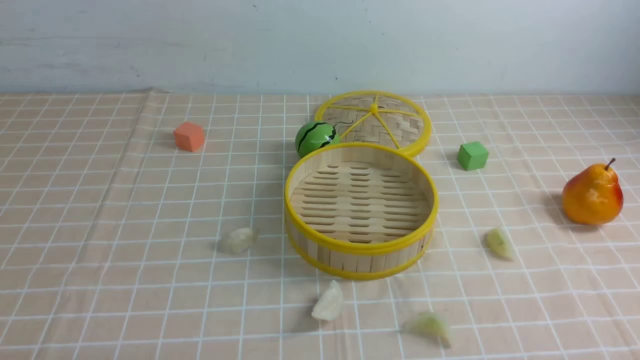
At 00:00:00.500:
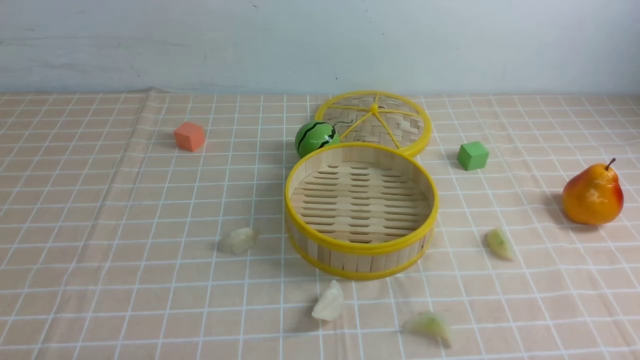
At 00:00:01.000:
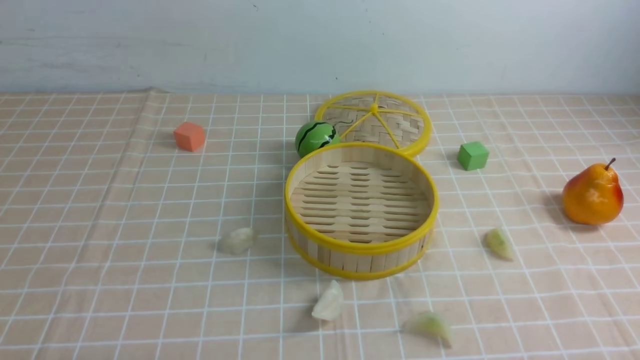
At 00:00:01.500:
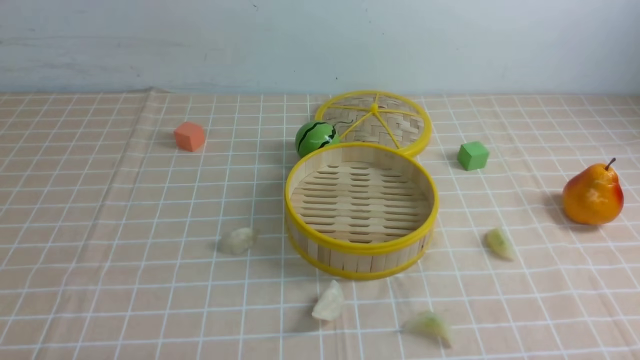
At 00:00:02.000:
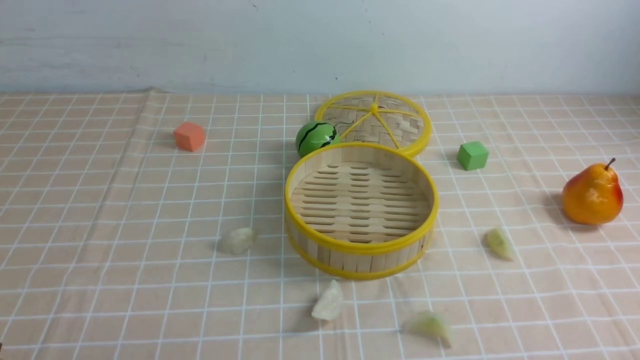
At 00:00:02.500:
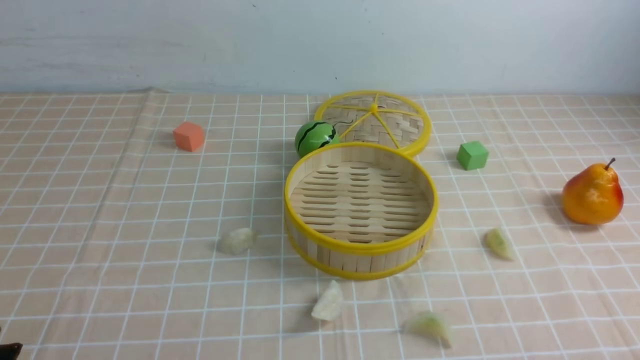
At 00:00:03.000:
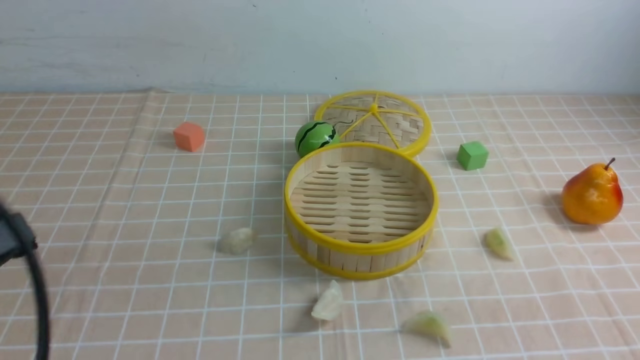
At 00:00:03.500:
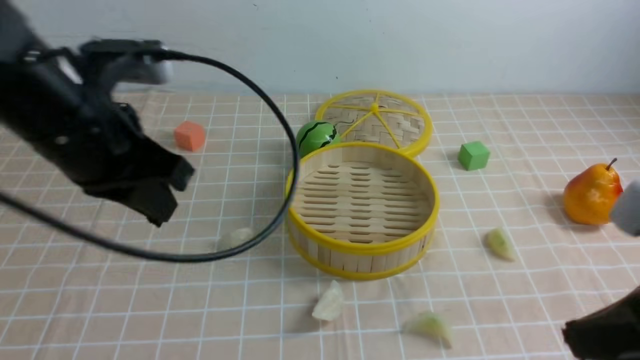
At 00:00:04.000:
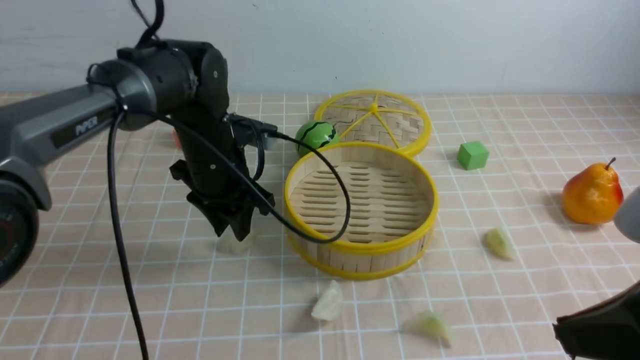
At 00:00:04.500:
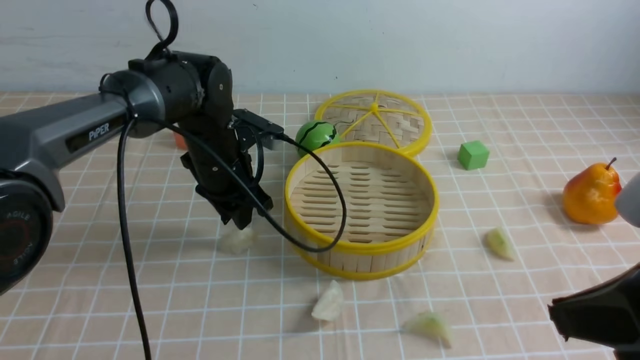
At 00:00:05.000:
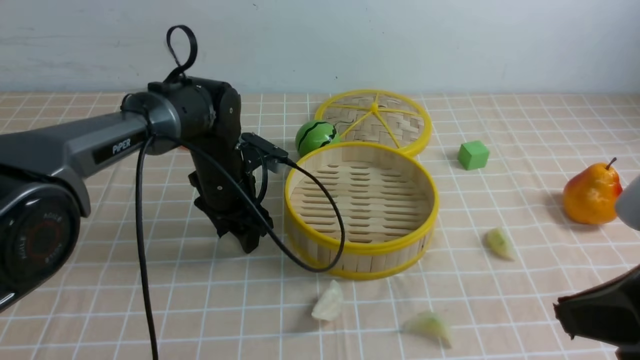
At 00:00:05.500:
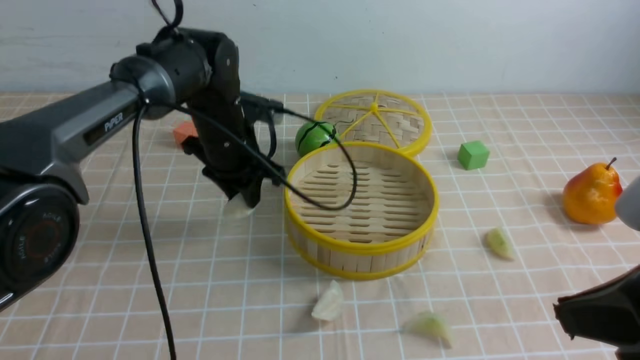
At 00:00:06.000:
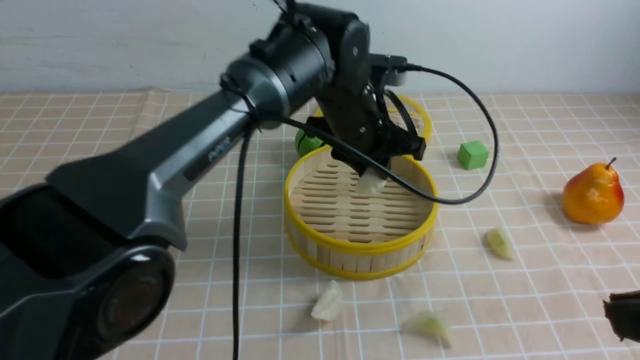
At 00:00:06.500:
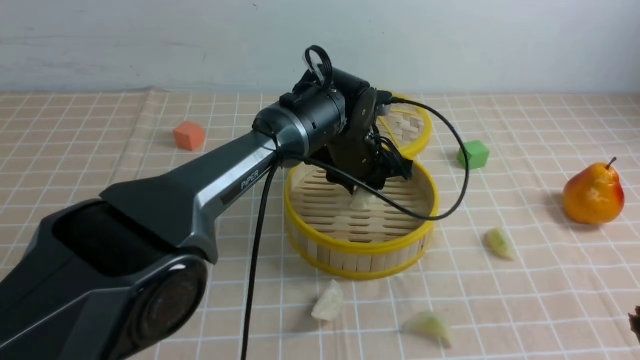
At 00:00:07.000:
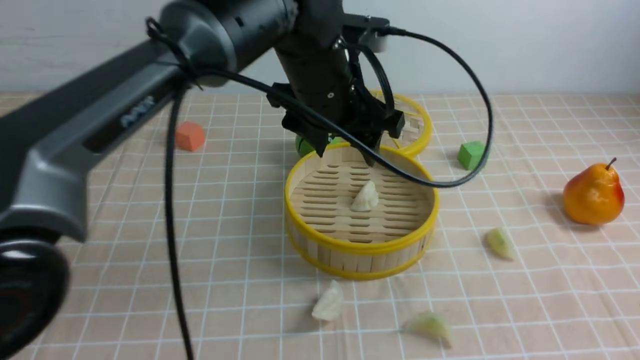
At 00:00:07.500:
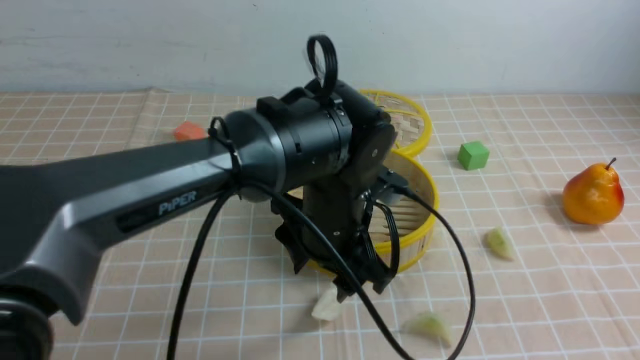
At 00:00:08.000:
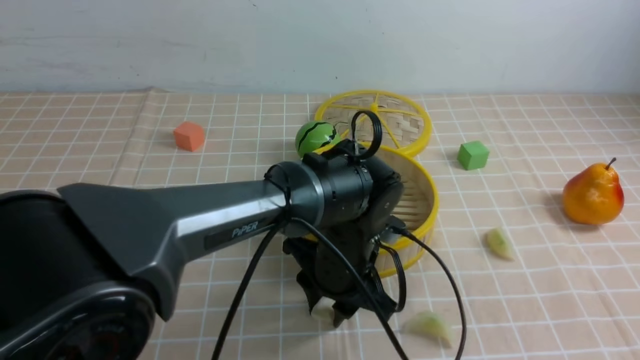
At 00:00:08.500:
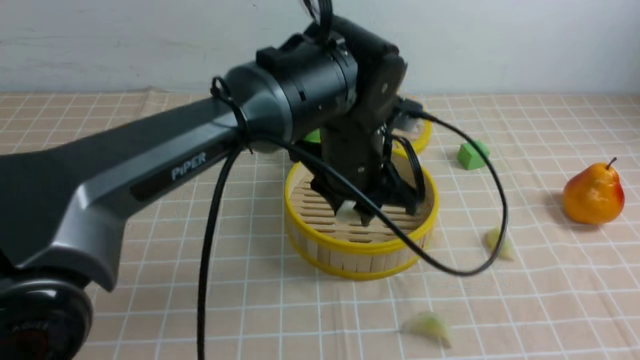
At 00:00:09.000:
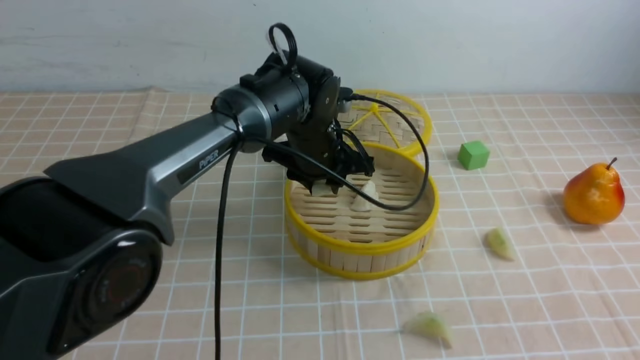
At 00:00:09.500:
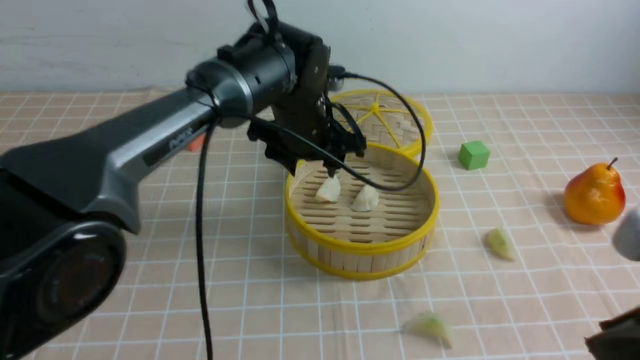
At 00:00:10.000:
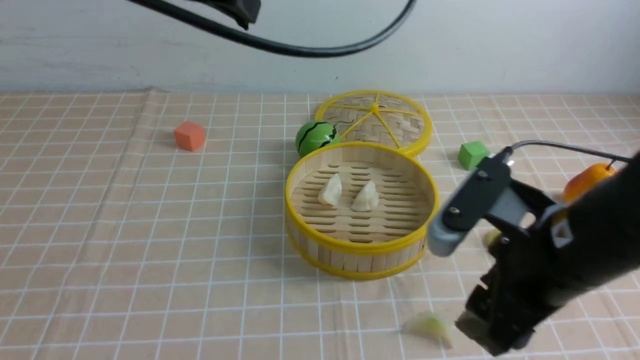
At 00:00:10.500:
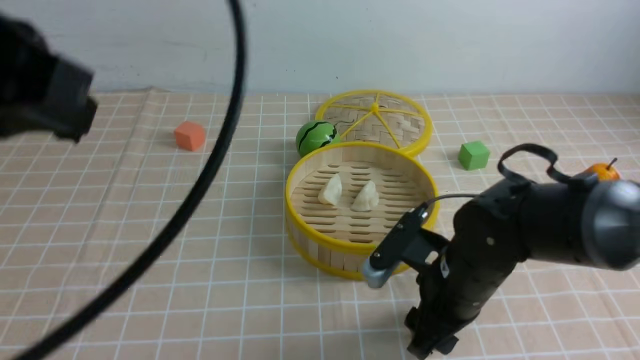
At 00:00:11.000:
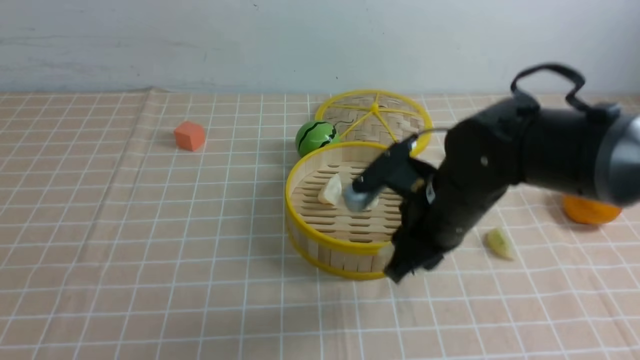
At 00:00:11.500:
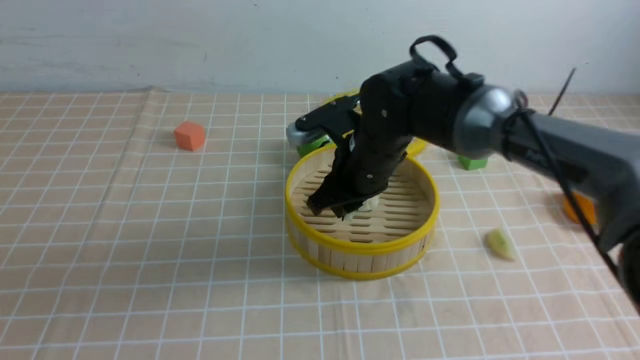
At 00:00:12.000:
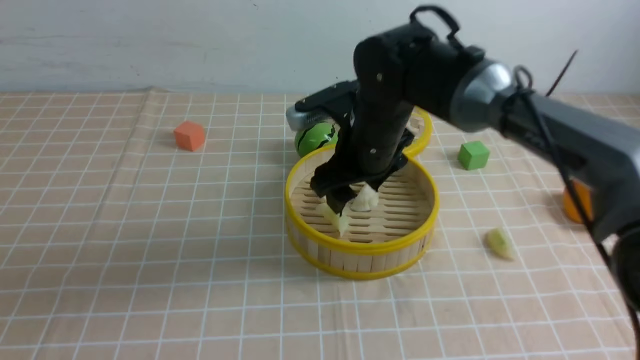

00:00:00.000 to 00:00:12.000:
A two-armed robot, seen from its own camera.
Task of the whole recording: put the dumplings into the steamer on the table with the brown tablecloth.
Step, 00:00:00.000 to 00:00:05.000: use the left arm to grab a dumpling.
Step, 00:00:05.500 to 00:00:06.500: use the left arm to put the dumpling into the steamer.
Step, 00:00:07.000 to 00:00:07.500: use the left arm to grab a dumpling.
Step, 00:00:08.000 to 00:00:09.000: use the left arm to put the dumpling into the steamer.
Step, 00:00:10.000 to 00:00:10.500: use the right arm to grab a dumpling.
Step, 00:00:11.000 to 00:00:12.000: use the right arm to put the dumpling into the steamer.
00:00:02.000 to 00:00:04.000: The left gripper shifts roughly 40 cm forward and to the right, and closes, then opens again. The right gripper is displaced upward, forward and to the left by some 20 cm, and closes its fingers.
00:00:04.000 to 00:00:06.000: The left gripper travels to the right by approximately 15 cm.
00:00:06.000 to 00:00:08.000: The left gripper swings up and down, about 15 cm each way, with 2 reversals.
00:00:08.000 to 00:00:10.000: The right gripper goes some 20 cm forward, to the left and downward, and opens its fingers, while the left gripper swings up and down, roughly 30 cm each way, with 2 reversals, and closes its fingers.
00:00:10.000 to 00:00:12.000: The left gripper shifts approximately 25 cm backward and to the left. The right gripper is displaced forward and to the left by approximately 20 cm, and closes and opens again.

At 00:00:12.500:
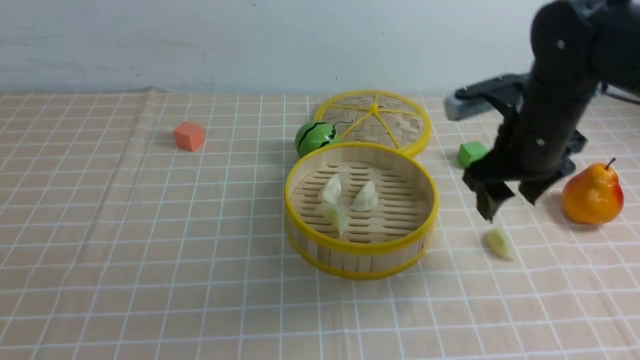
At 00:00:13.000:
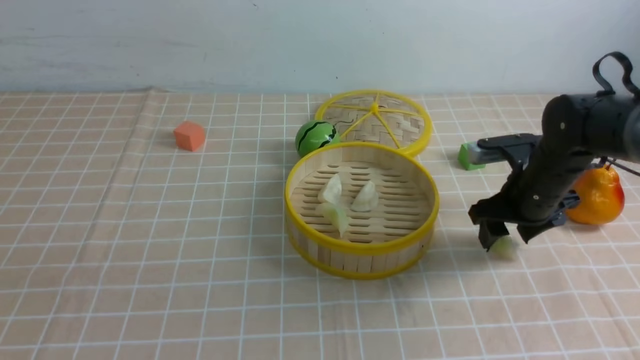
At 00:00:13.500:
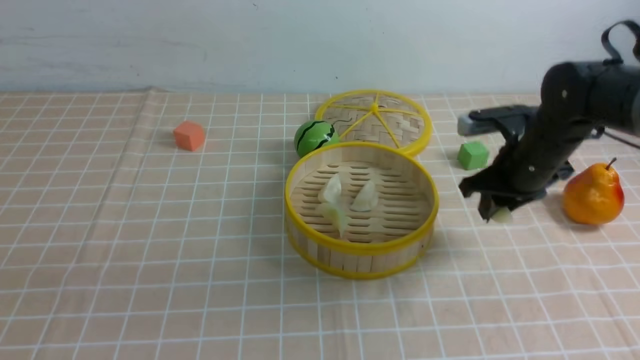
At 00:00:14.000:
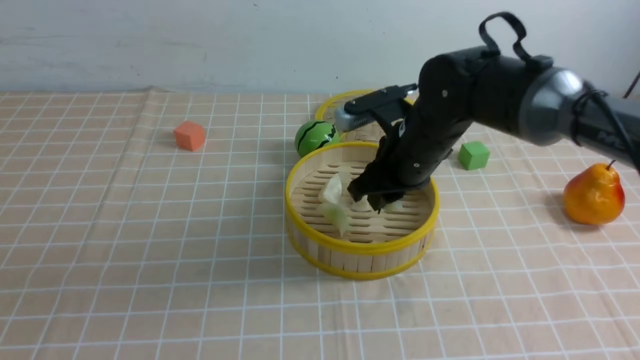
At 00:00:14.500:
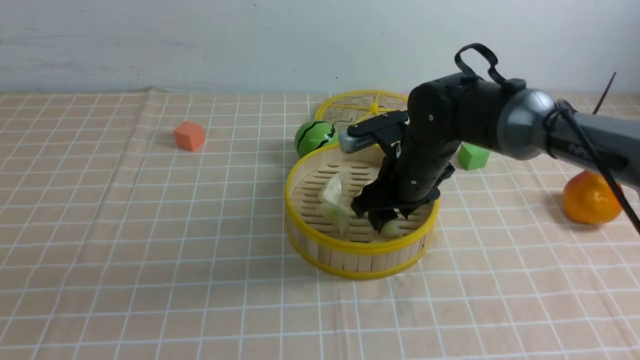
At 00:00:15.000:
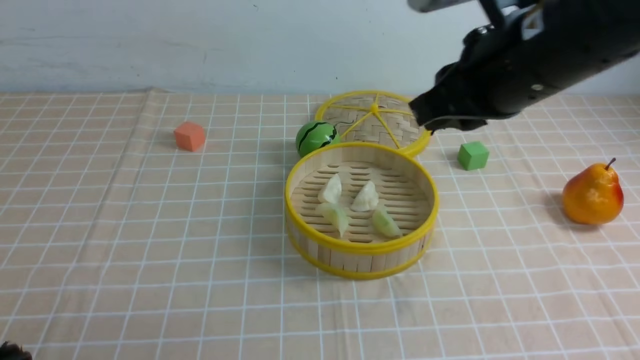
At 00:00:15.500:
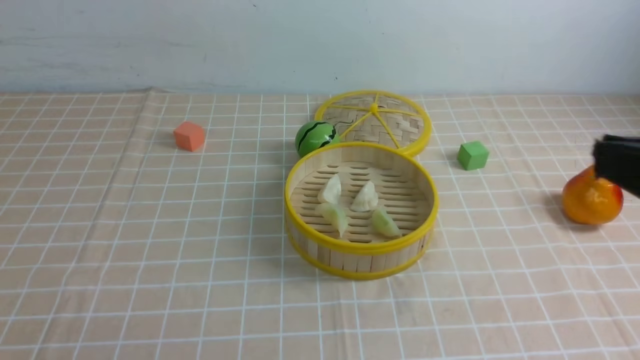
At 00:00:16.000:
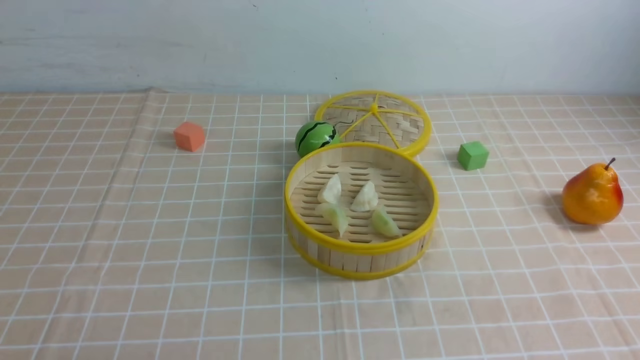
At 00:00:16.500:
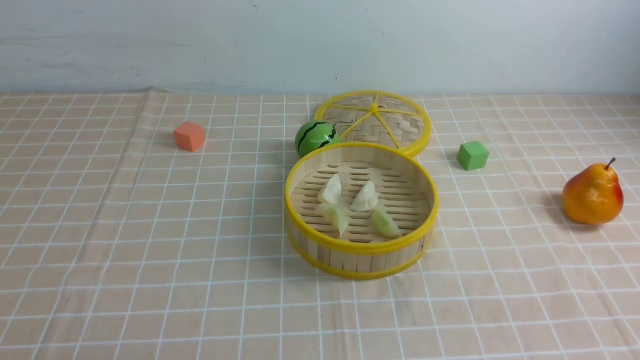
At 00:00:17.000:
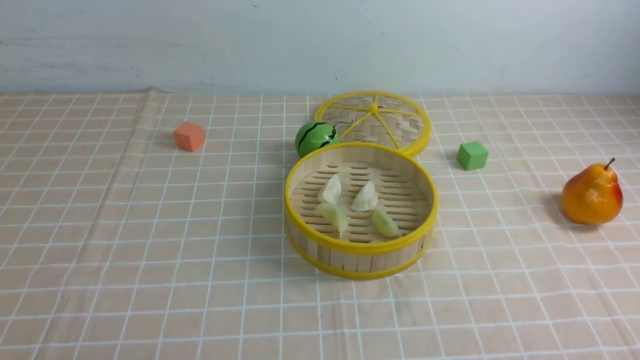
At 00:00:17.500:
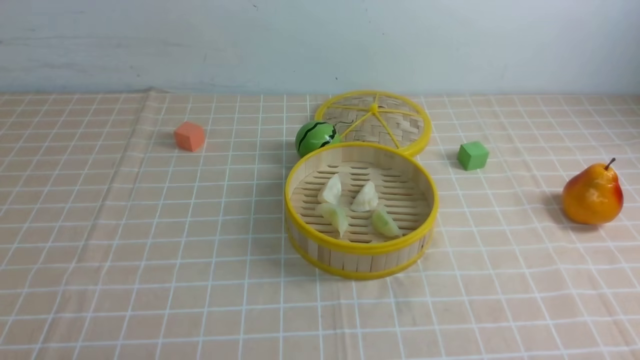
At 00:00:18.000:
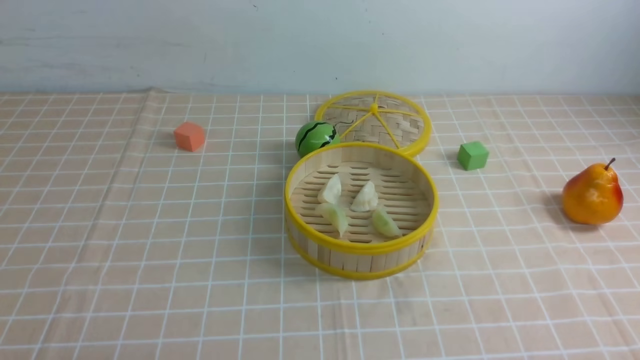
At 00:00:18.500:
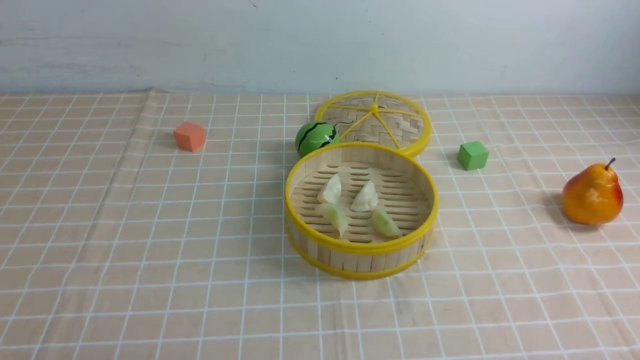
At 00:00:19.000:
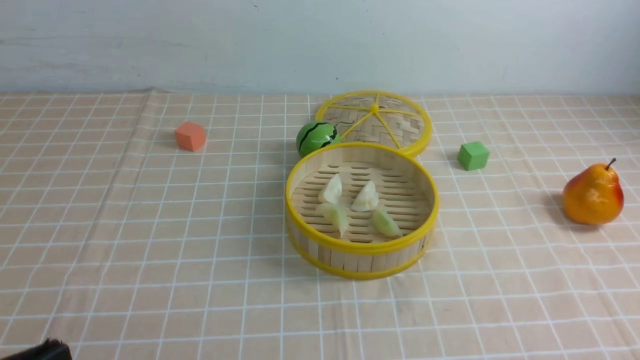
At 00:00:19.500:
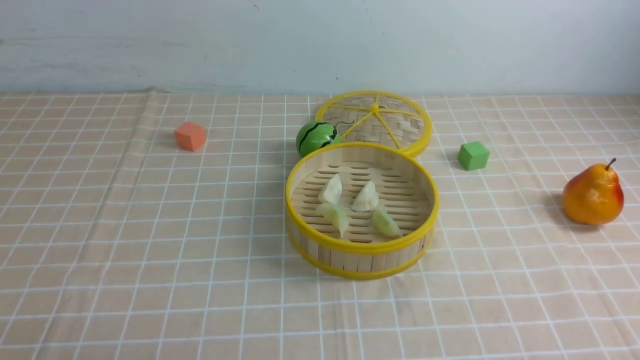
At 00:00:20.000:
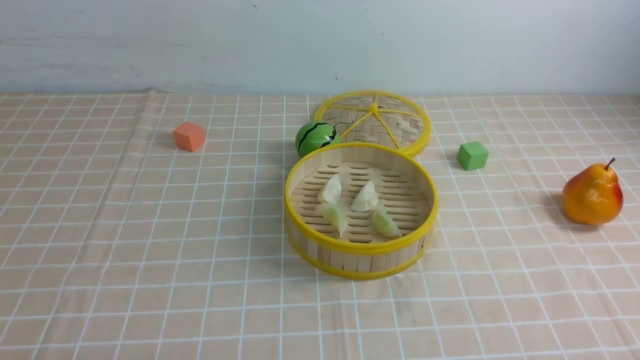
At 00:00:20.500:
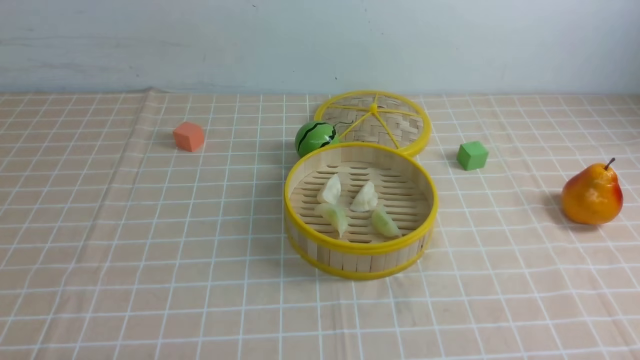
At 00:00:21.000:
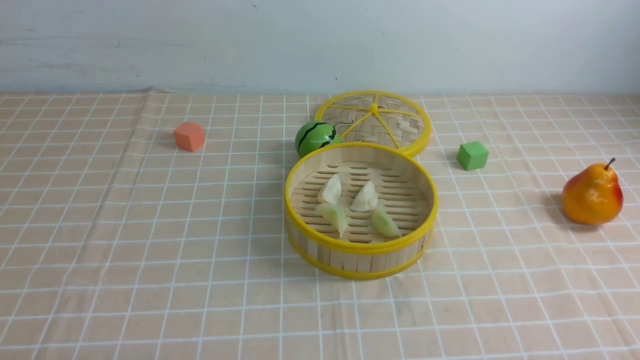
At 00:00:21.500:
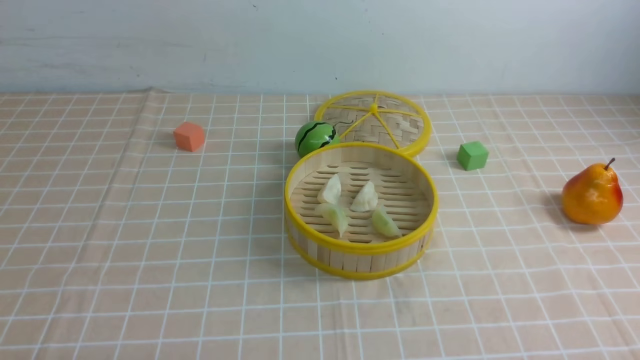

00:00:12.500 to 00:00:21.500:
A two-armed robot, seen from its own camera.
Task of the whole recording: put the dumplings into the steamer on the table with the brown tablecloth.
Step, 00:00:13.500 to 00:00:14.500: use the right arm to put the dumpling into the steamer.
00:00:12.500 to 00:00:14.500: The right gripper is displaced to the left by approximately 10 cm.
00:00:14.500 to 00:00:17.000: The right gripper travels backward and to the right by about 40 cm, and closes up, while the left gripper travels downward by roughly 15 cm.
